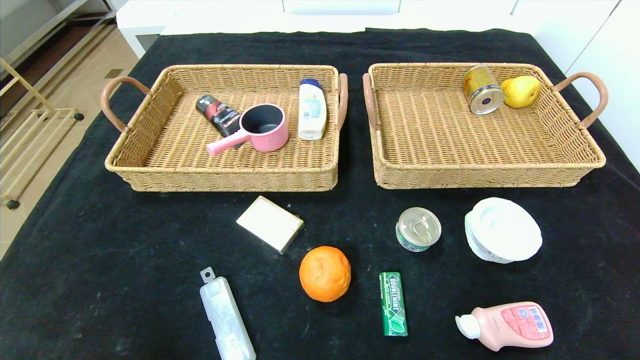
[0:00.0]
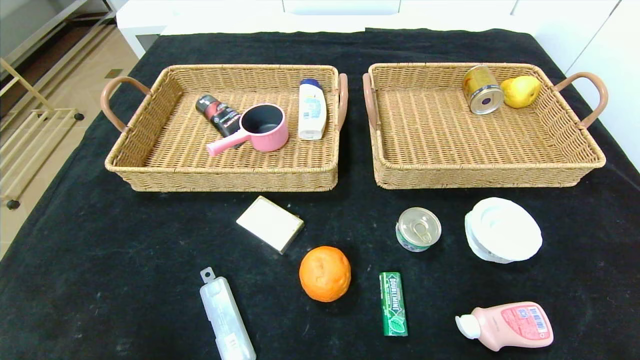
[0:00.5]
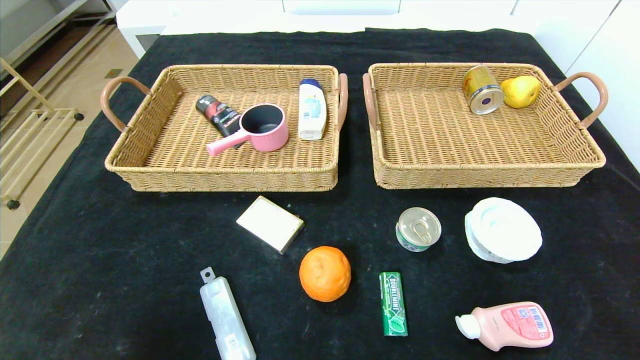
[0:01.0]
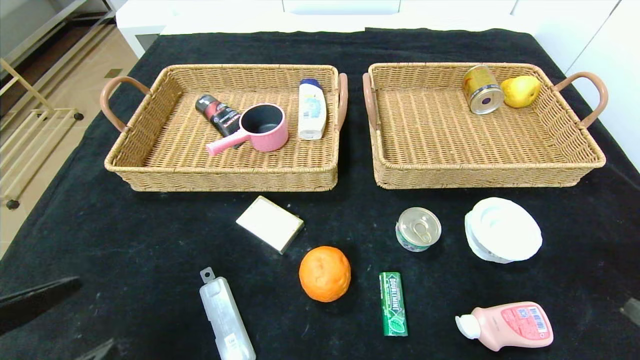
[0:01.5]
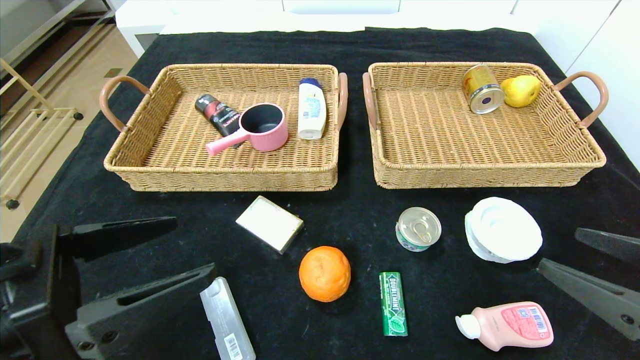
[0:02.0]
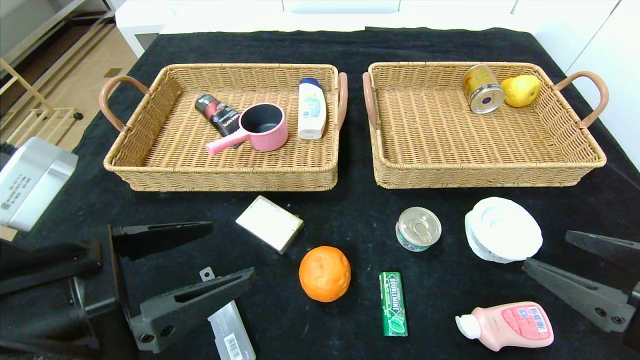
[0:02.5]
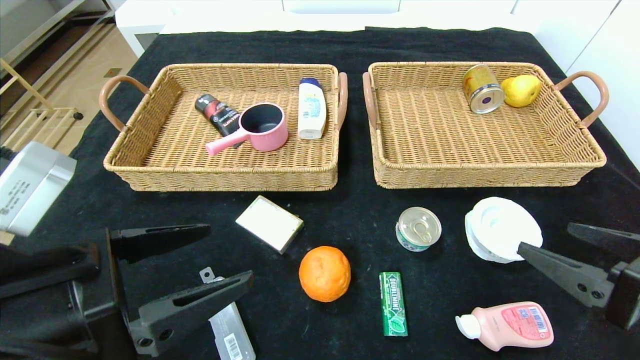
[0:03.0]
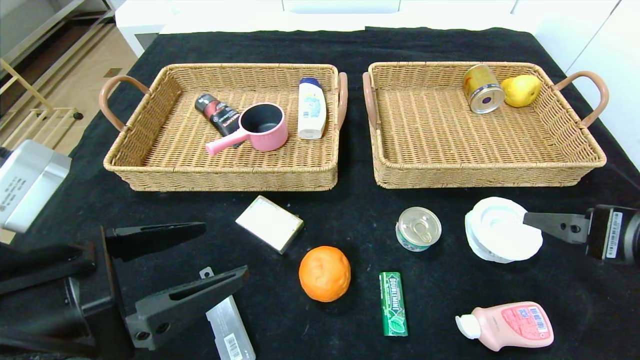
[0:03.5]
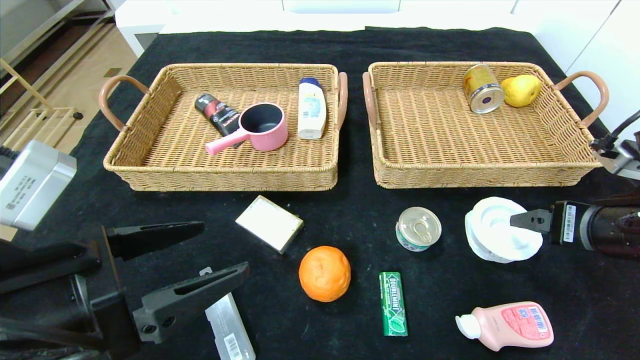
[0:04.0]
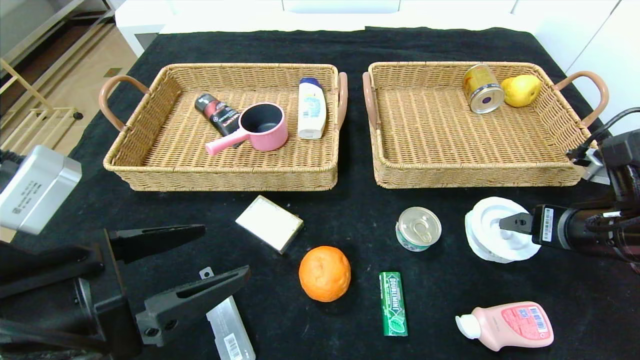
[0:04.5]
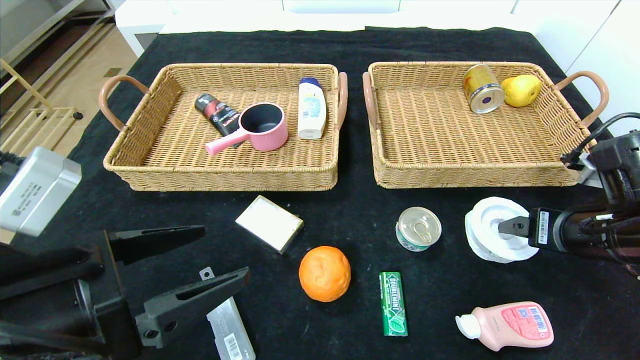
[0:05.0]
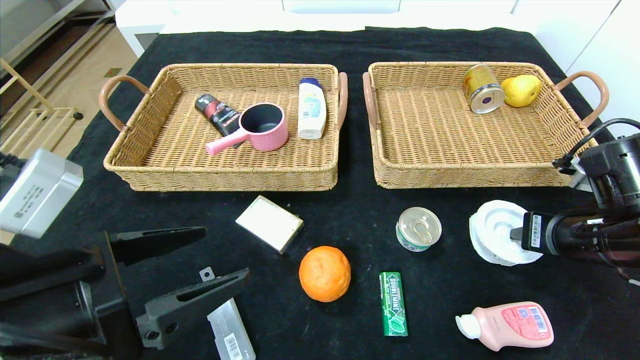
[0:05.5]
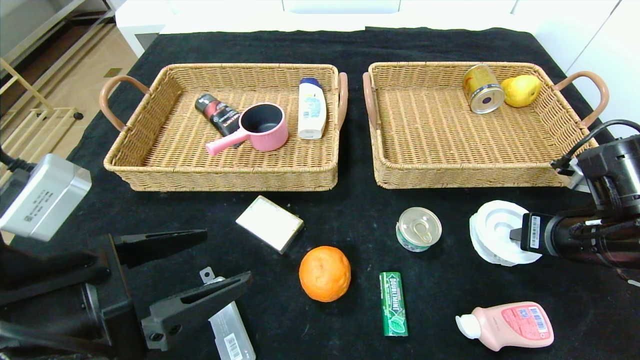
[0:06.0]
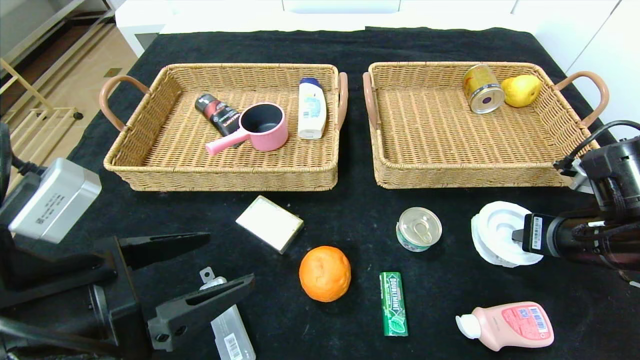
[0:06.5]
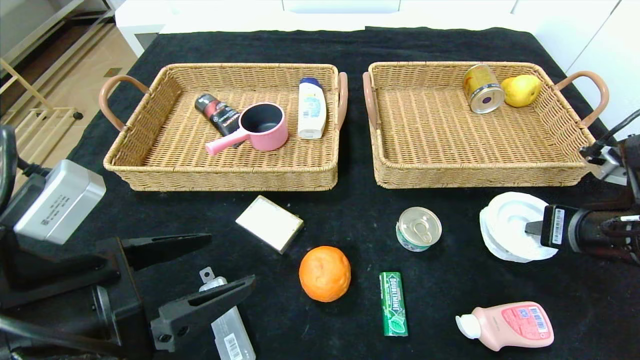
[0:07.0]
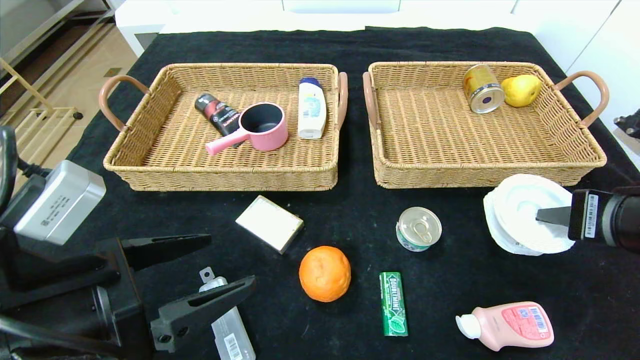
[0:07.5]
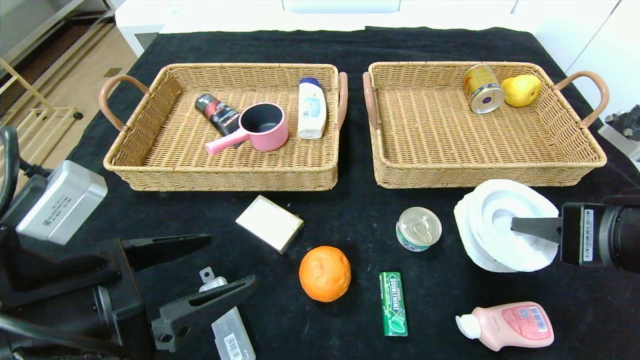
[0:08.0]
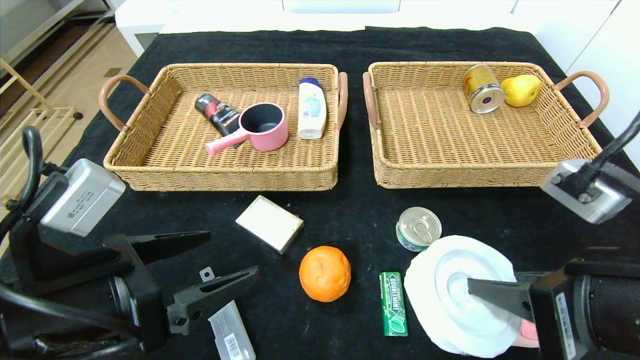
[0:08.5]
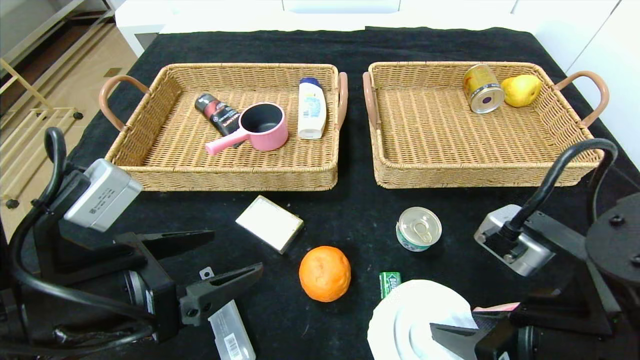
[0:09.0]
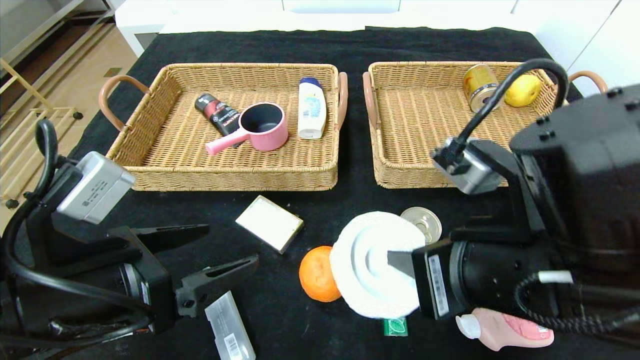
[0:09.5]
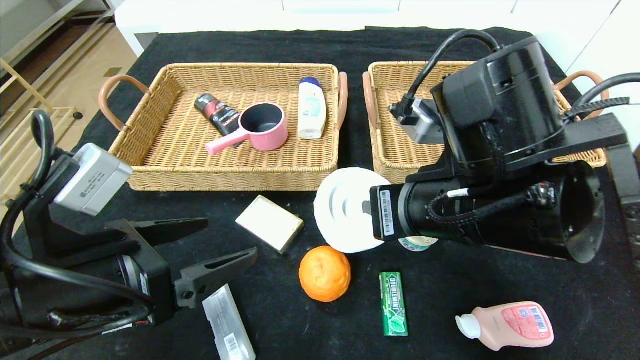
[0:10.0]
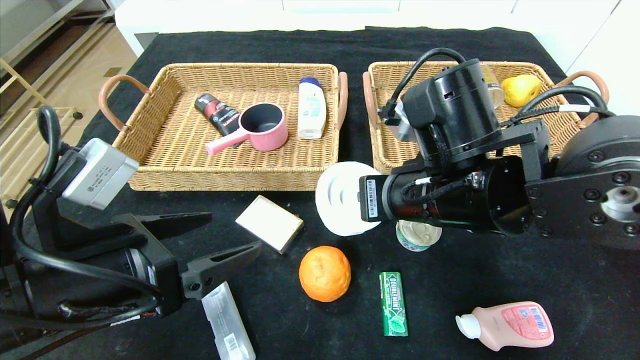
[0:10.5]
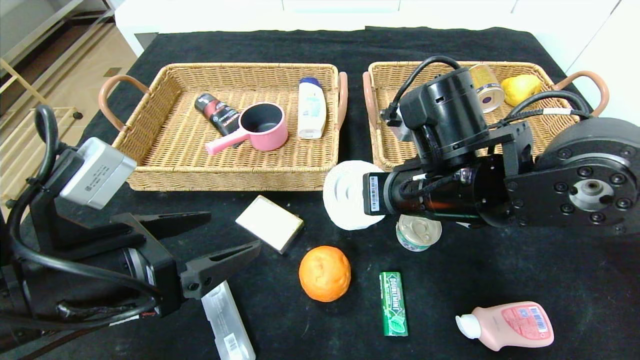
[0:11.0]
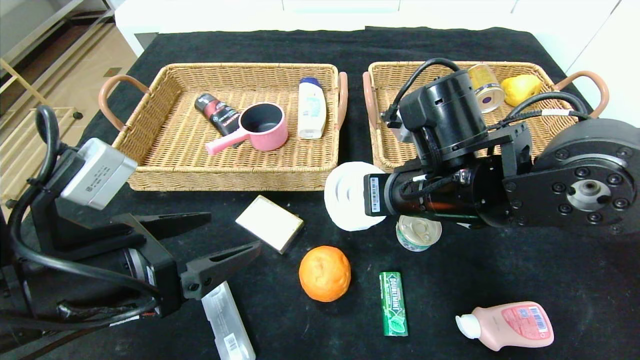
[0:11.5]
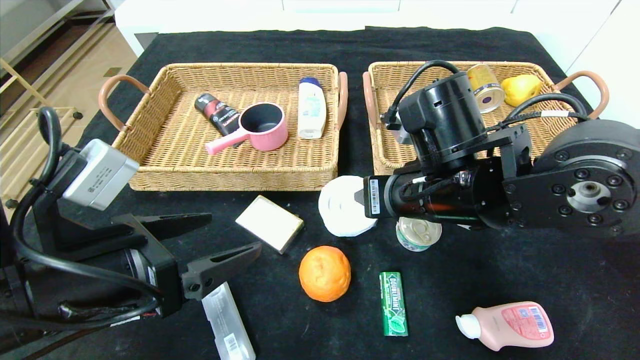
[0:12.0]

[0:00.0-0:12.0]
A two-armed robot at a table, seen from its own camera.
0:00.0 to 0:02.0: The left gripper goes about 20 cm upward and forward; the right gripper is displaced upward, forward and to the left by approximately 20 cm.
0:02.0 to 0:04.0: The right gripper goes some 10 cm forward.
0:04.0 to 0:06.0: The right gripper closes.
0:06.0 to 0:08.0: The right gripper is displaced backward and upward by some 10 cm.
0:08.0 to 0:10.0: The right gripper goes some 15 cm to the left.
0:10.0 to 0:12.0: The right gripper goes approximately 5 cm forward, and opens its fingers.

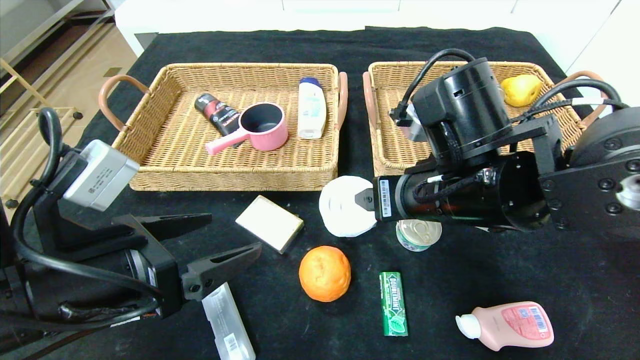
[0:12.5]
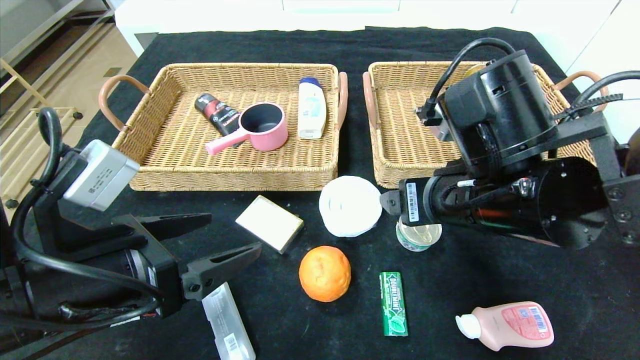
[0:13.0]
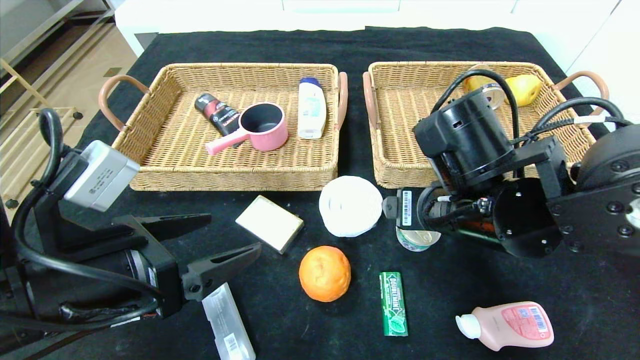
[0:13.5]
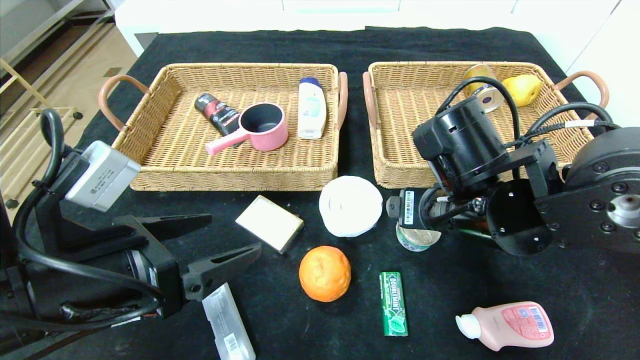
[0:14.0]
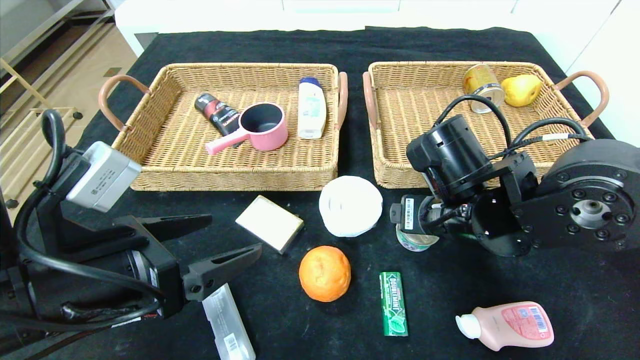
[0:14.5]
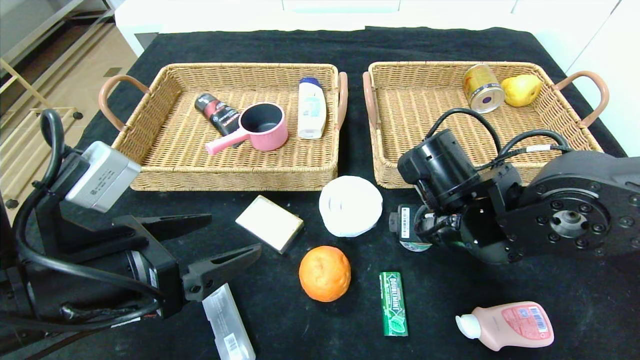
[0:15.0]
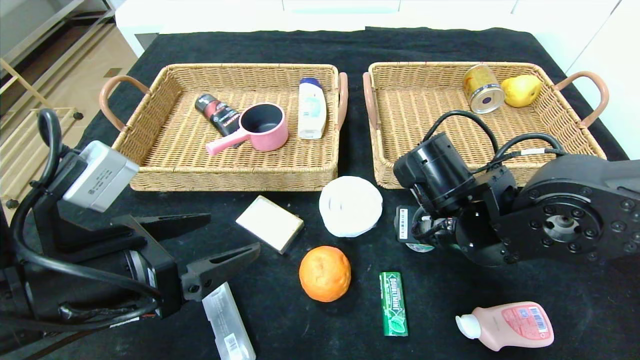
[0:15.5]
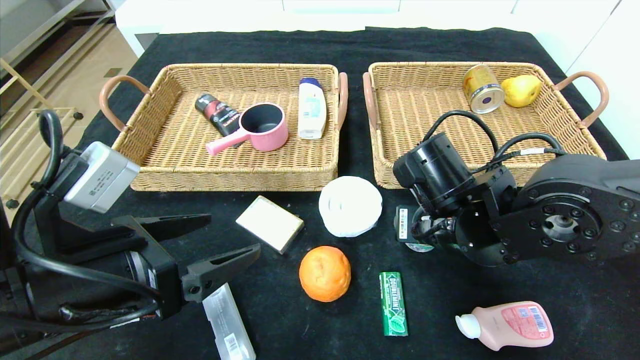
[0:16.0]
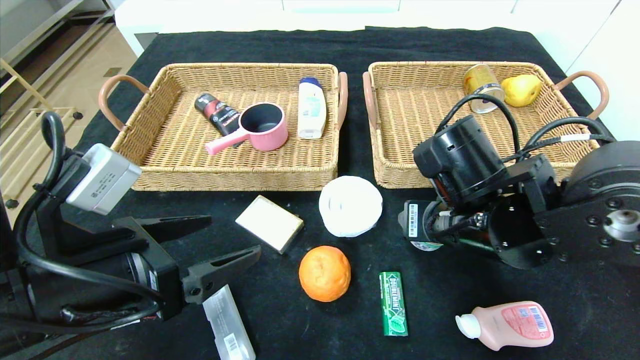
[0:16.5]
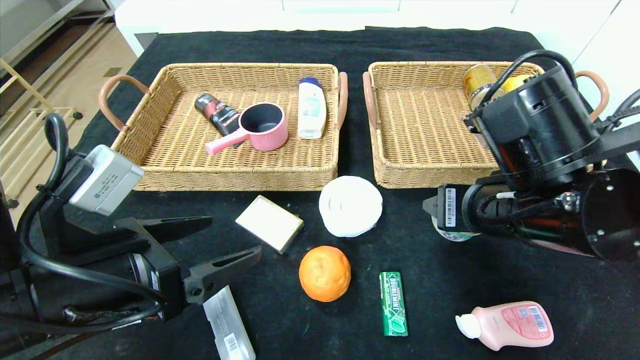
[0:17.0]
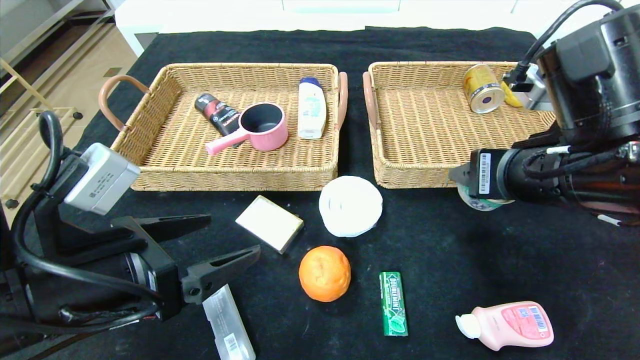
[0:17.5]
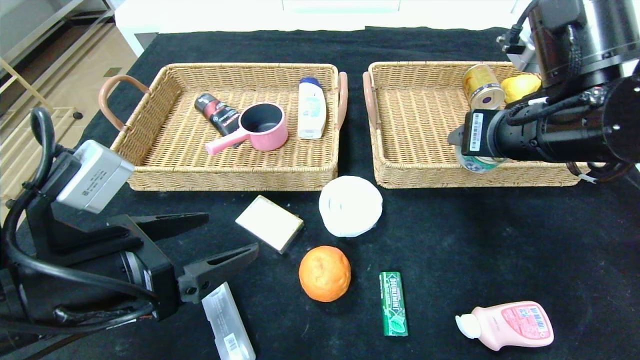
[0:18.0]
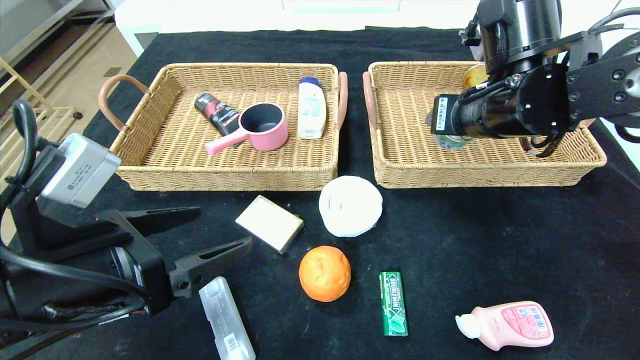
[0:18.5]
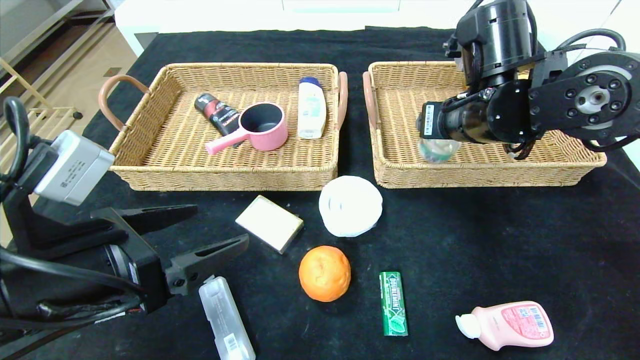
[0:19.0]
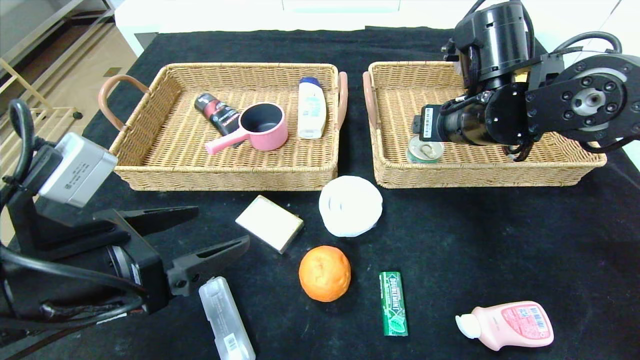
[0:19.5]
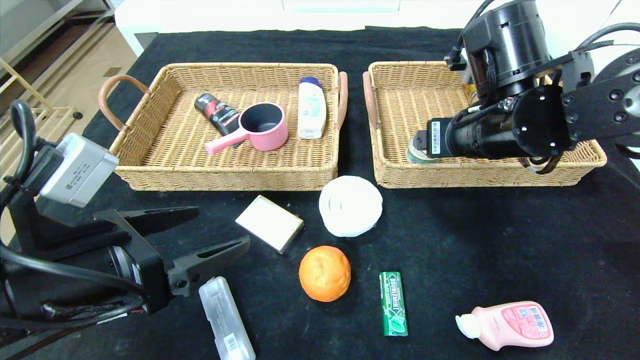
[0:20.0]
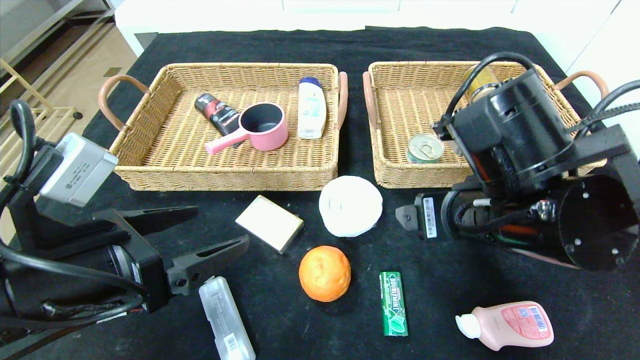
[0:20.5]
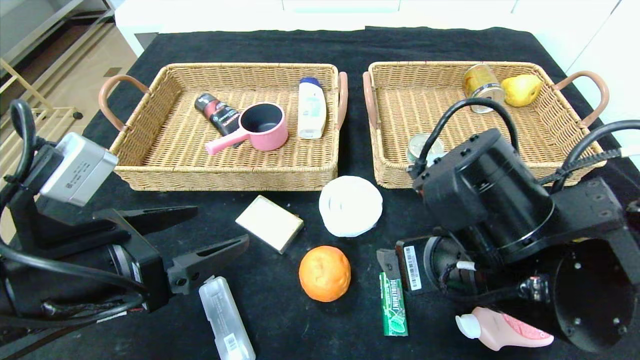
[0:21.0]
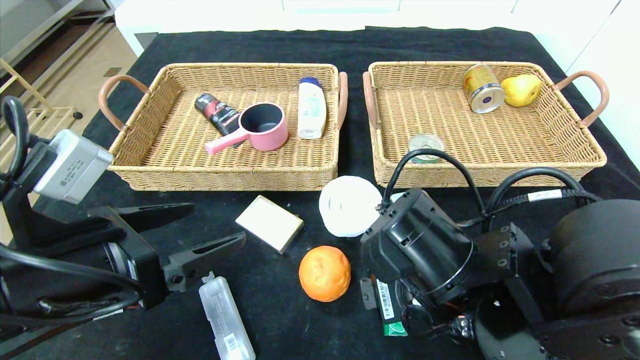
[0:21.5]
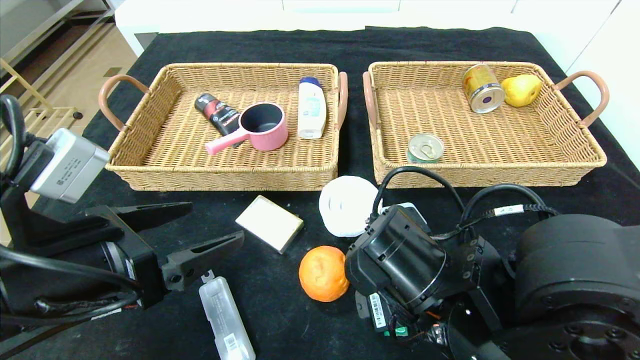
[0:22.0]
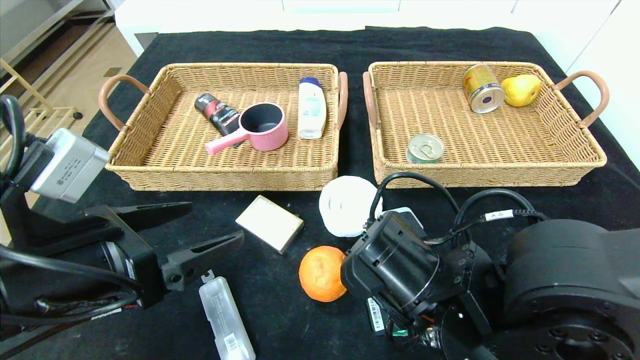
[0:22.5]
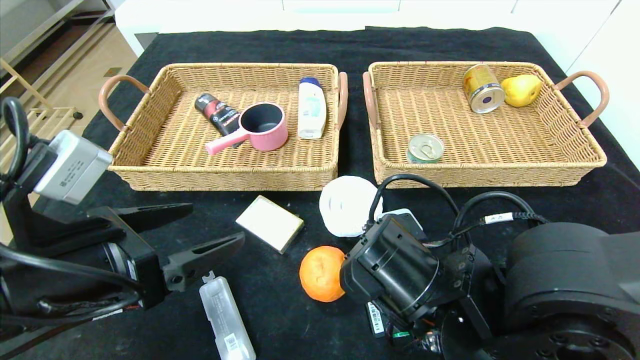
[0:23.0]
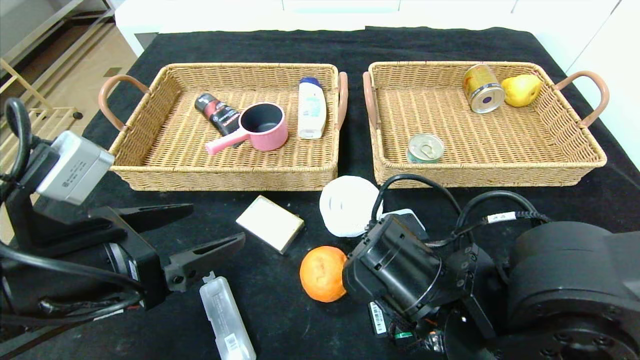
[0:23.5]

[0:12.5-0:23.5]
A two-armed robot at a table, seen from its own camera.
Step, 0:14.5 to 0:20.5: Pick up the can and put it in the right basket.
0:14.5 to 0:16.0: The right gripper closes.
0:16.0 to 0:18.0: The right gripper shifts about 15 cm upward and to the right.
0:18.0 to 0:20.0: The right gripper opens up.
0:20.0 to 0:21.5: The right gripper travels backward, downward and to the left by about 15 cm.
0:21.5 to 0:23.5: The right gripper closes its fingers.
